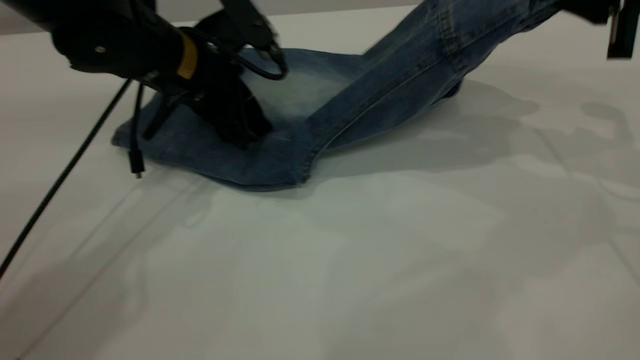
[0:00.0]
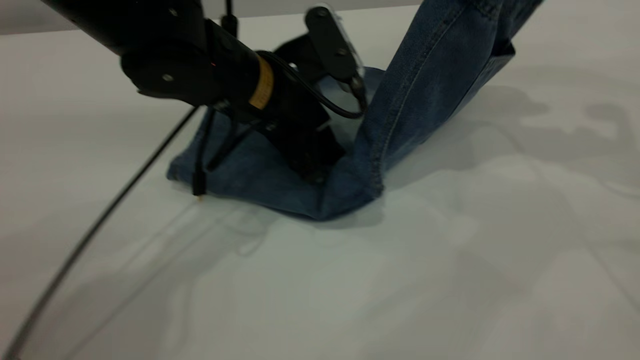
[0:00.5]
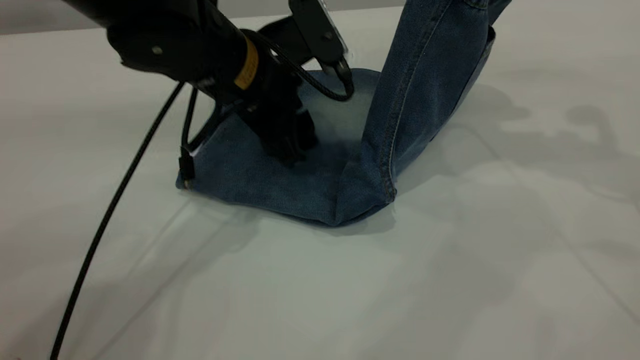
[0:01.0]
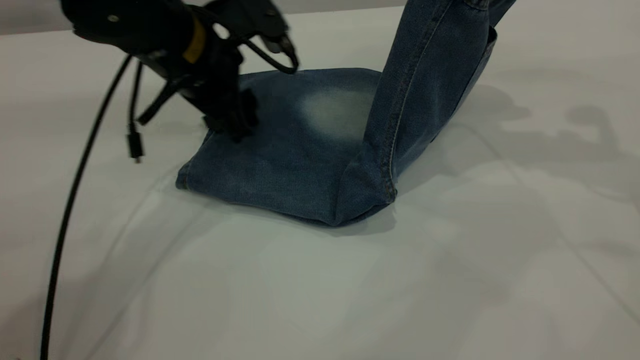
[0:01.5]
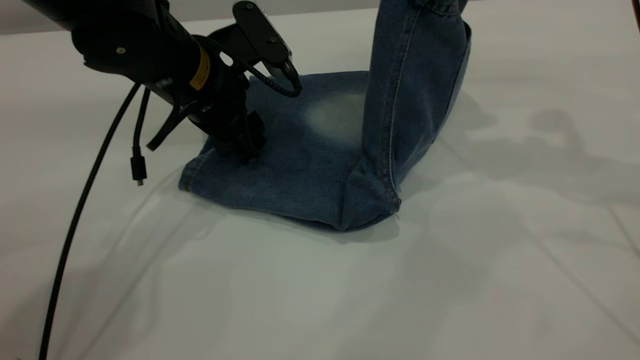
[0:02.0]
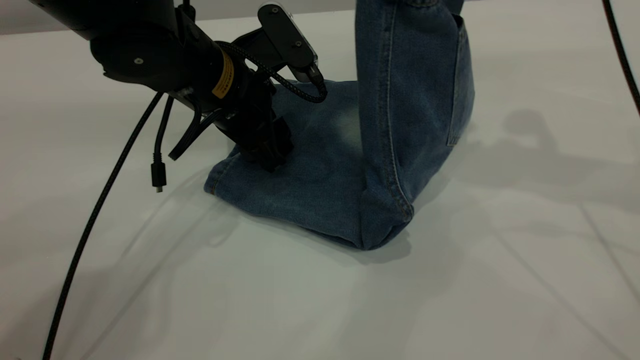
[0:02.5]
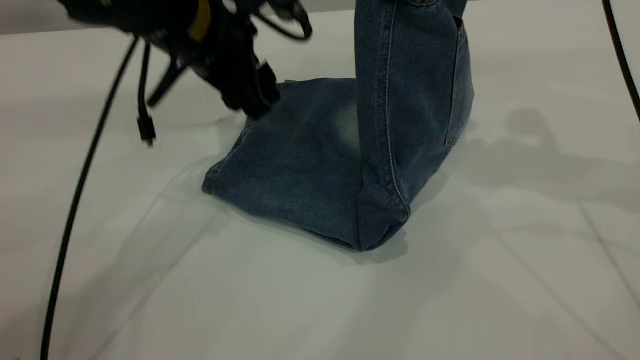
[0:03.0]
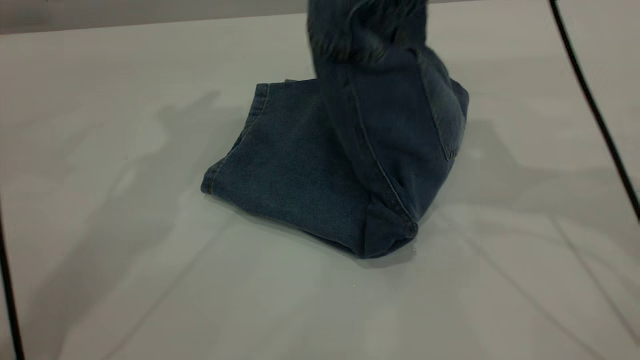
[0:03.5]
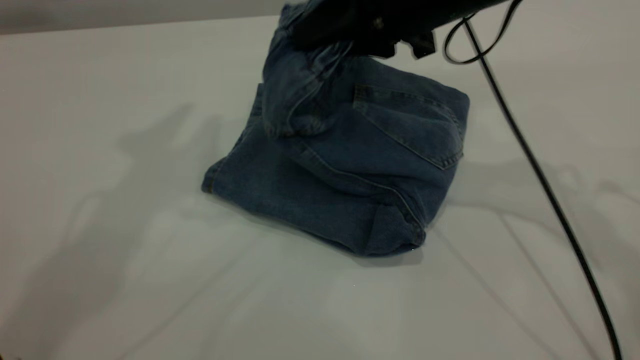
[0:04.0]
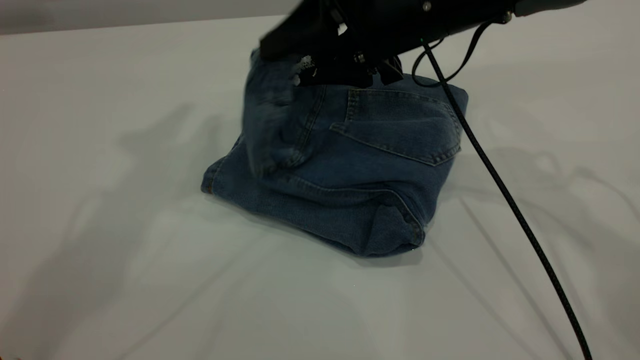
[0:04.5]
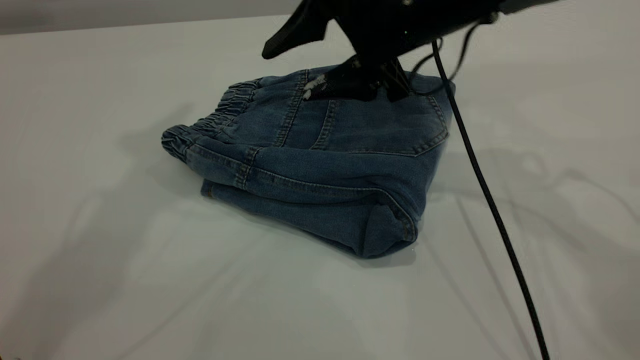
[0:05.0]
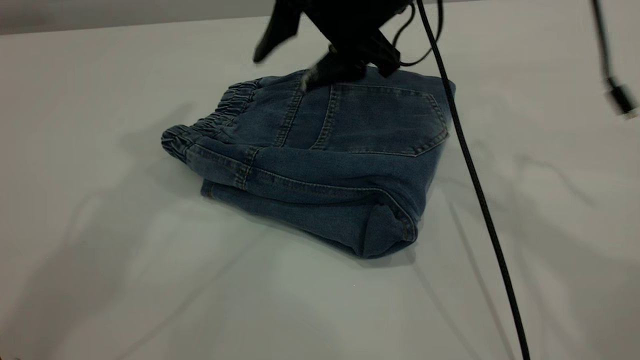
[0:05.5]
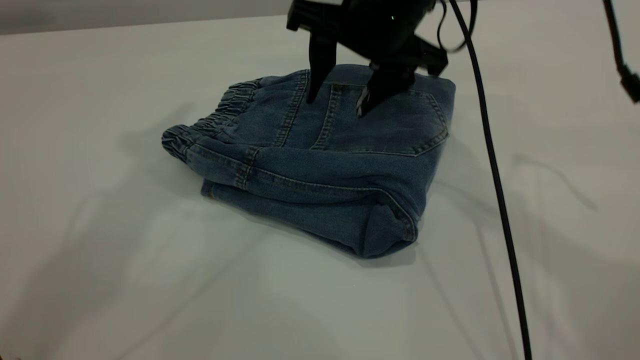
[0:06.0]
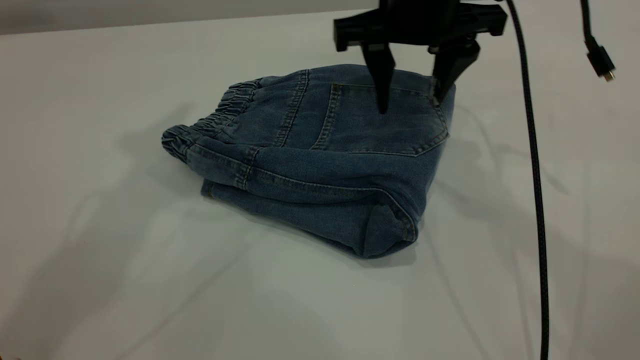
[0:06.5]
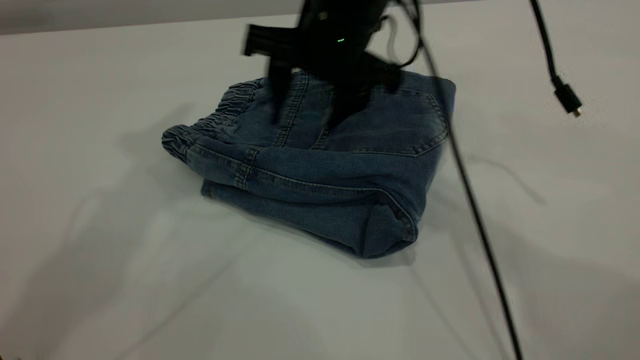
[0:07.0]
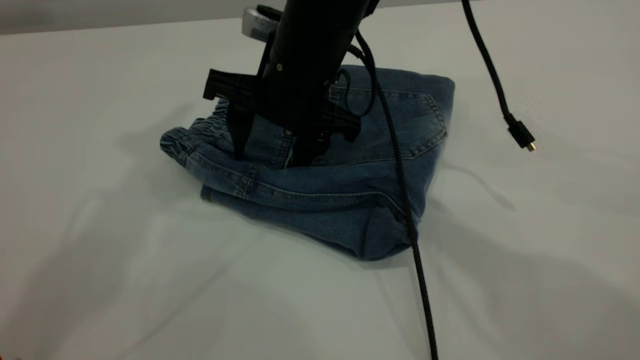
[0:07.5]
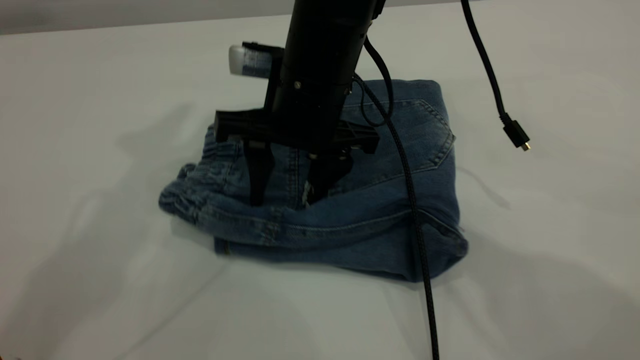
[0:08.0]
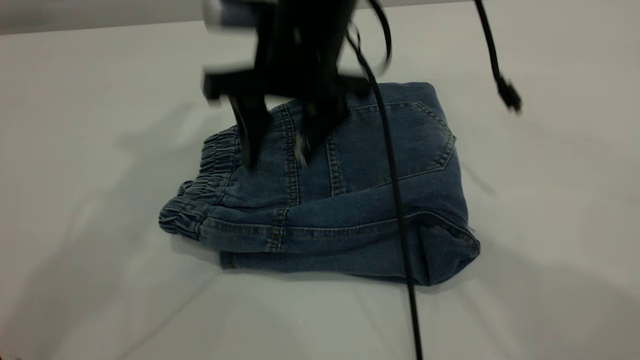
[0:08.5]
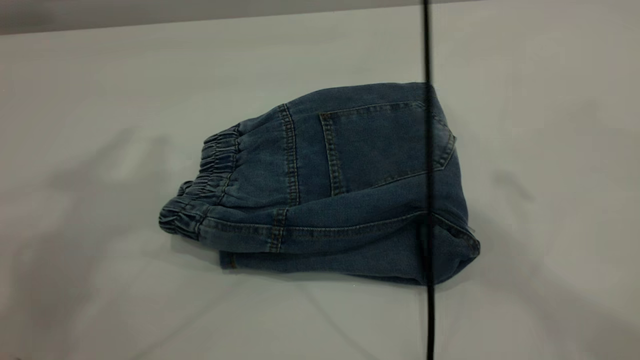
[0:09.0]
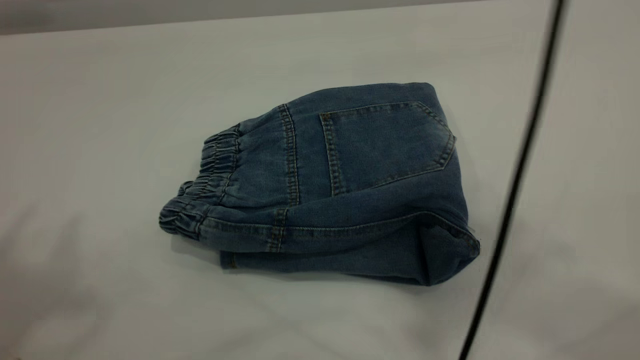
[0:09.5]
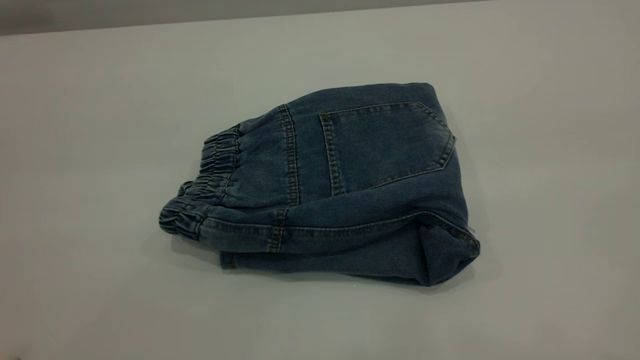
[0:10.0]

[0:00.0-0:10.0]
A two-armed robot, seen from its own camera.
Step, 0:00.0 to 0:04.5: Fold your pants from right to left.
0:00.0 to 0:02.0: The right gripper travels upward and to the left by some 10 cm.
0:02.0 to 0:04.0: The right gripper shifts about 15 cm to the left and downward; the left gripper heads upward, covering some 30 cm.
0:04.0 to 0:06.0: The right gripper shifts by about 5 cm, and opens up.
0:06.0 to 0:08.0: The right gripper is displaced to the left and downward by roughly 10 cm.
0:08.0 to 0:10.0: The right gripper goes roughly 50 cm upward, backward and to the right. The left gripper is displaced backward by about 25 cm.

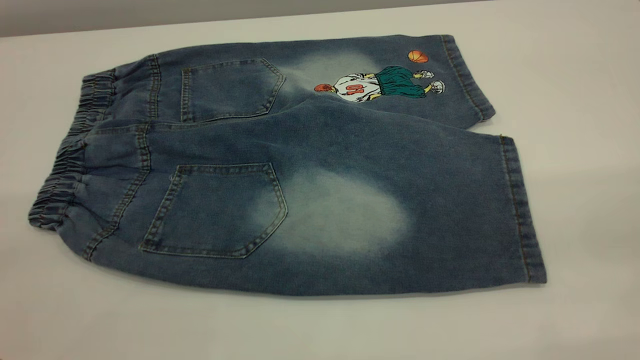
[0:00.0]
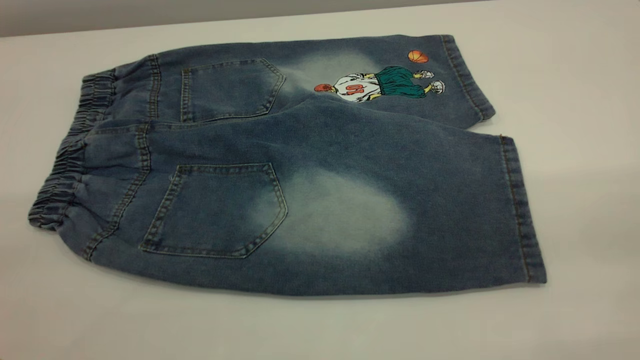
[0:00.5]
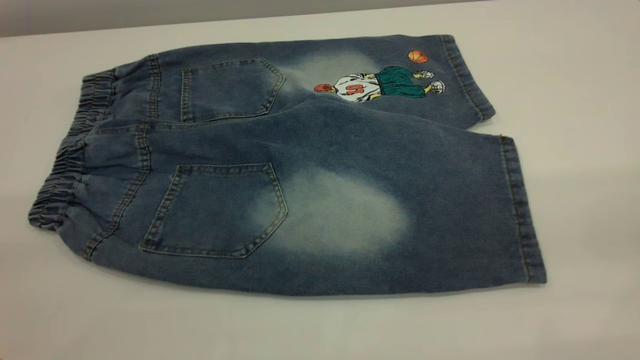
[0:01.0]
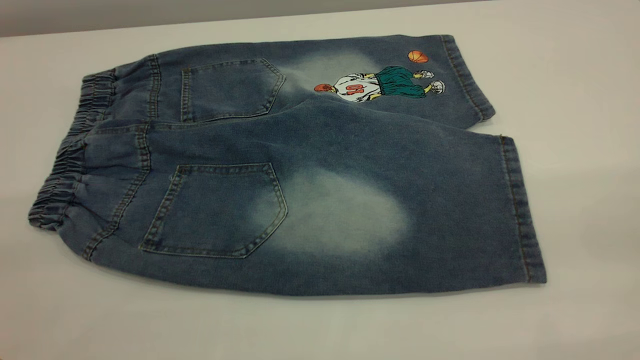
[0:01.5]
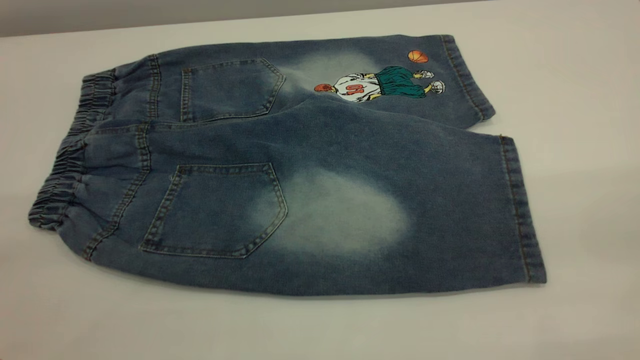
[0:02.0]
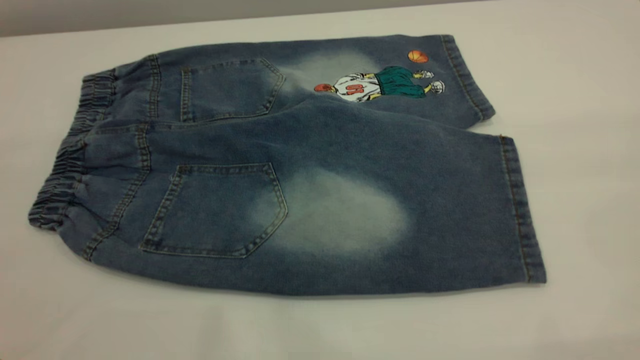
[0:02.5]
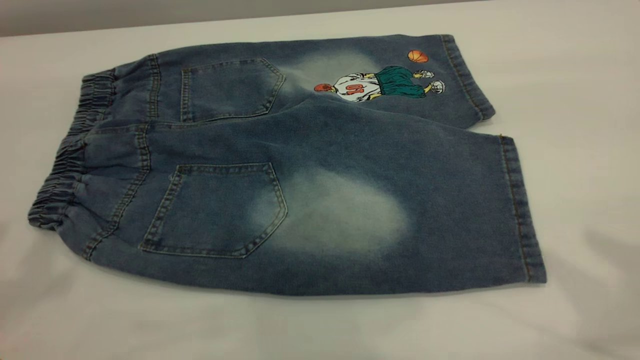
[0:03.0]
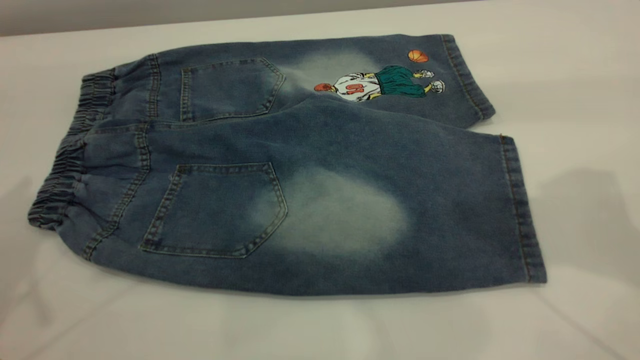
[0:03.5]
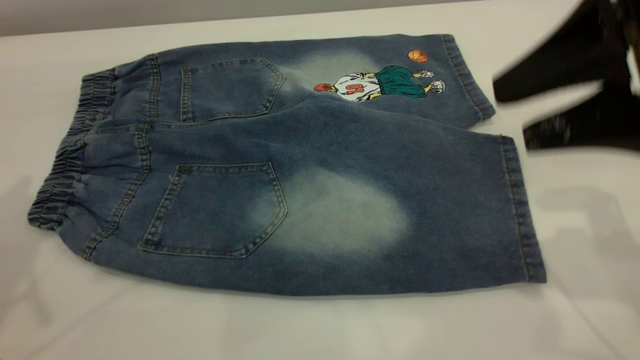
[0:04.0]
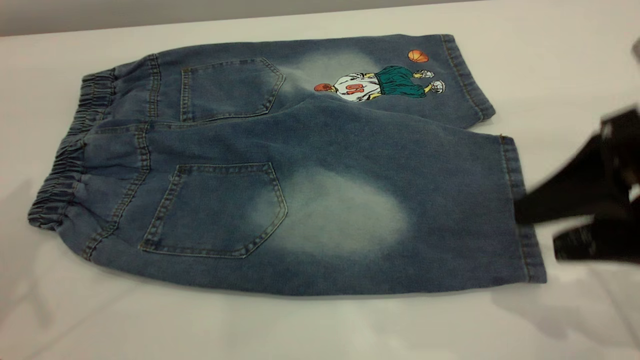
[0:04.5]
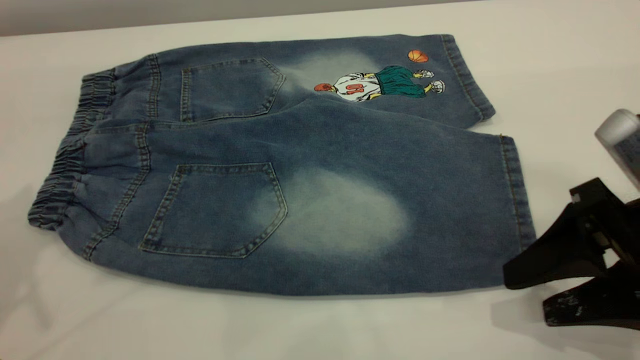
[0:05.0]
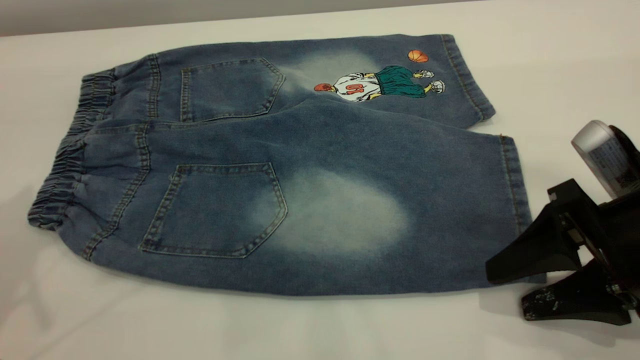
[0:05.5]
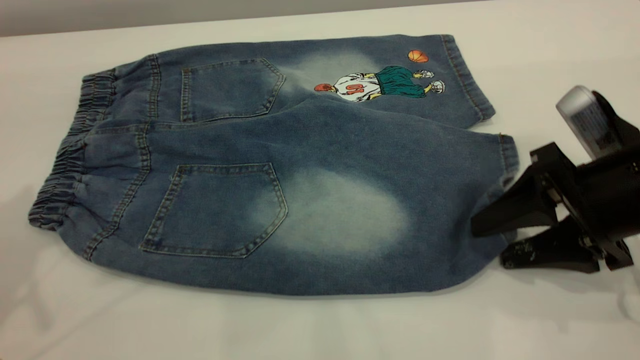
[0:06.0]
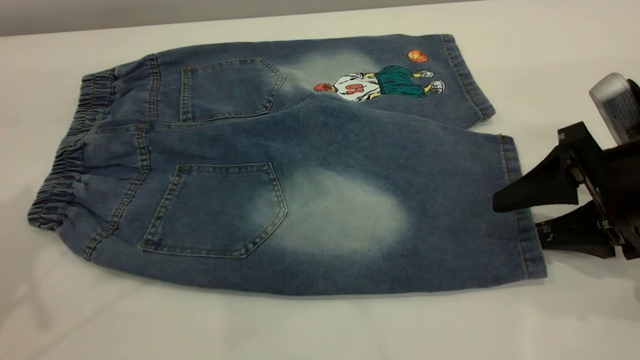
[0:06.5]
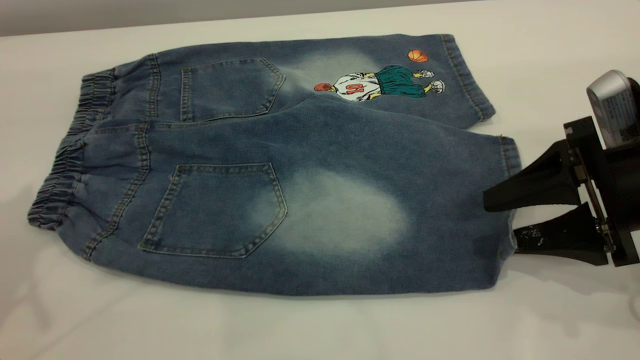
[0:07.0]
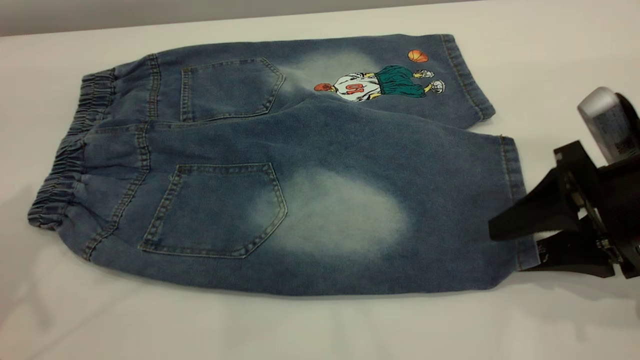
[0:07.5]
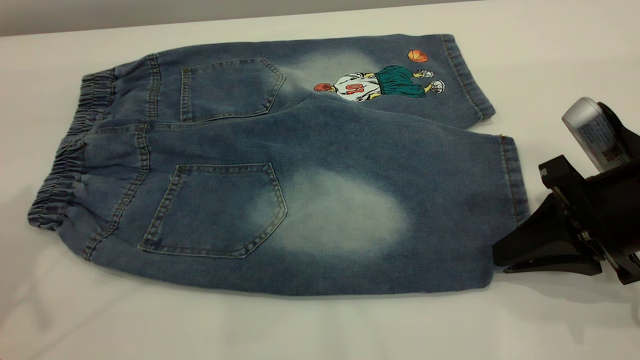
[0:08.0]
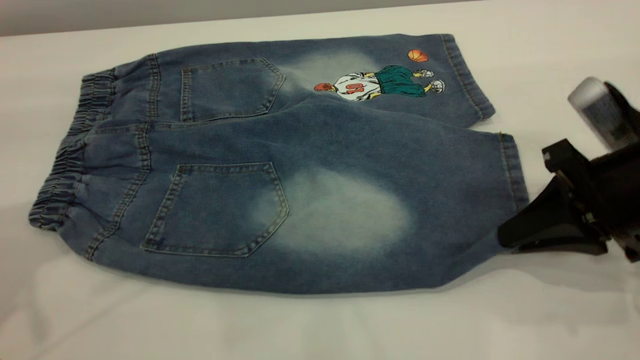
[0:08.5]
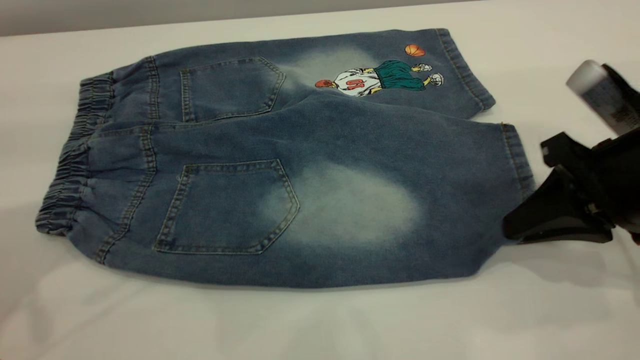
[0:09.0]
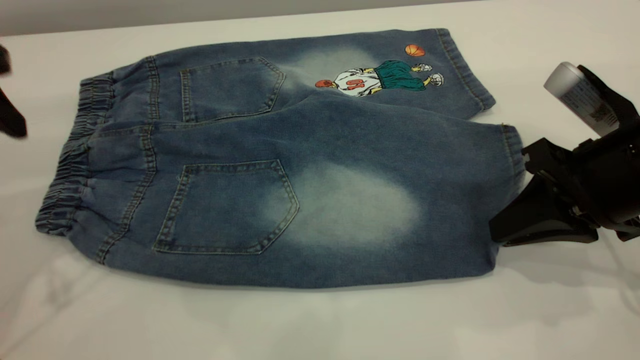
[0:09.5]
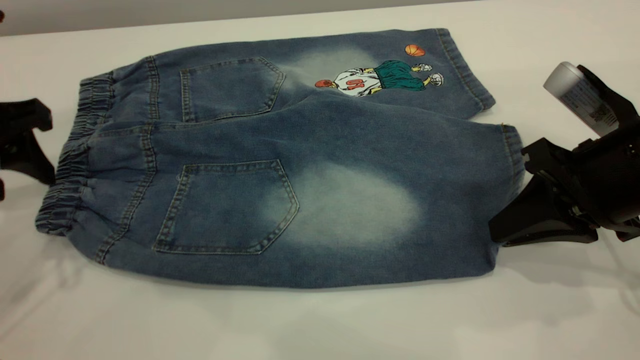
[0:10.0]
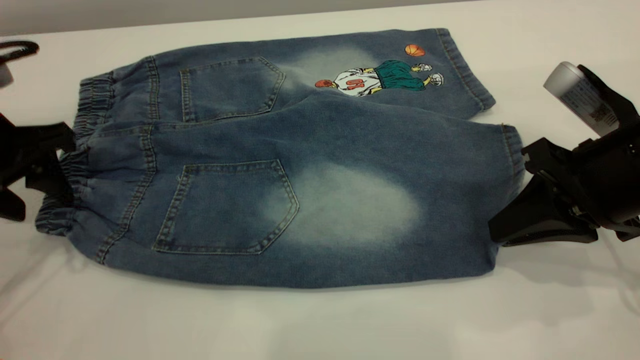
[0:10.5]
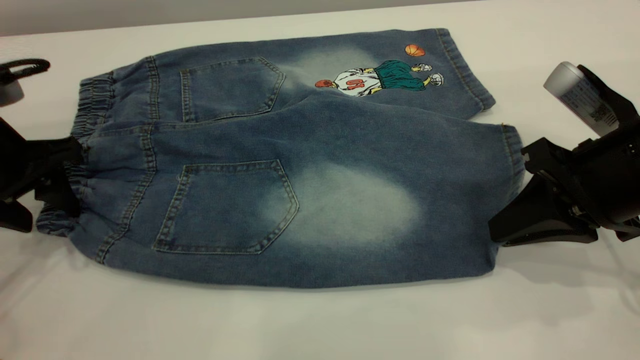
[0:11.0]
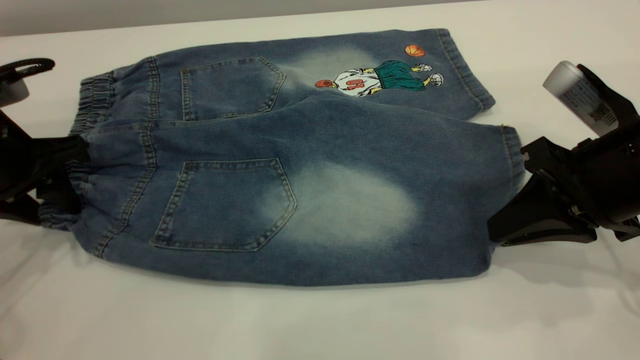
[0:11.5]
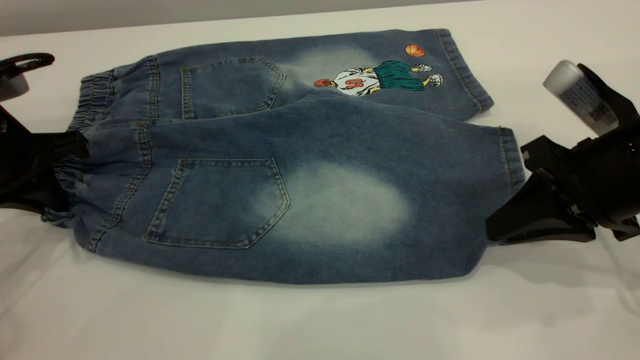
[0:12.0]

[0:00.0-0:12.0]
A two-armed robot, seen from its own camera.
0:00.0 to 0:02.0: Neither gripper changes place.
0:02.0 to 0:04.0: The right gripper moves forward and downward, roughly 25 cm.
0:04.0 to 0:06.0: The right gripper shifts approximately 15 cm downward.
0:06.0 to 0:08.0: The right gripper closes its fingers.
0:08.0 to 0:10.0: The left gripper is displaced downward by approximately 15 cm.
0:10.0 to 0:12.0: The left gripper shifts by roughly 5 cm, and closes its fingers.
